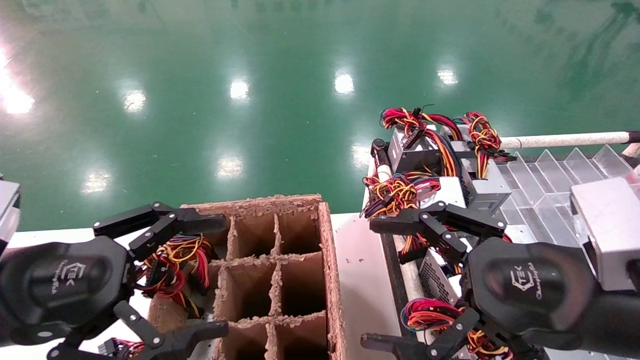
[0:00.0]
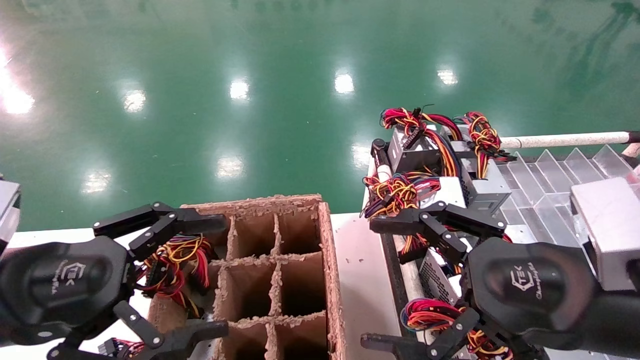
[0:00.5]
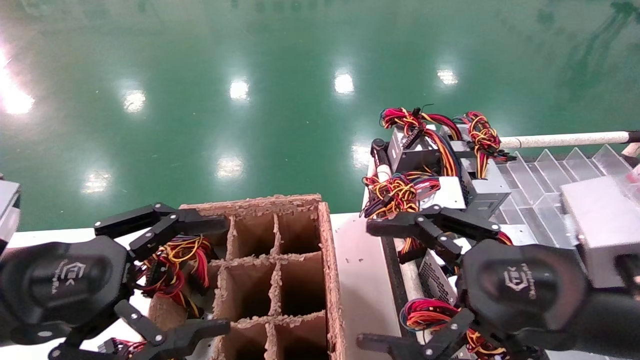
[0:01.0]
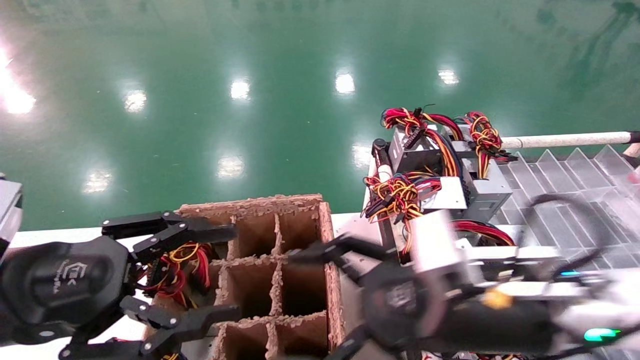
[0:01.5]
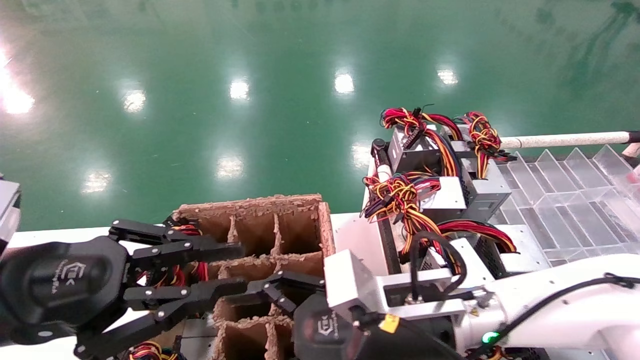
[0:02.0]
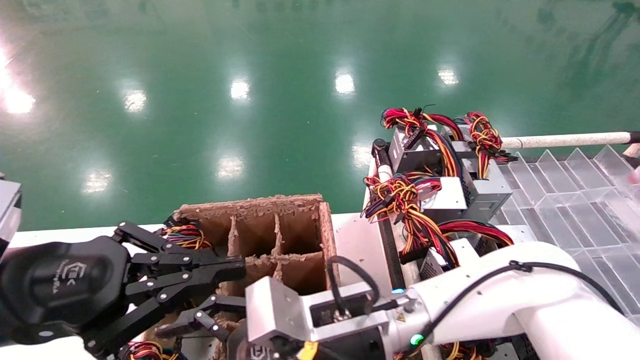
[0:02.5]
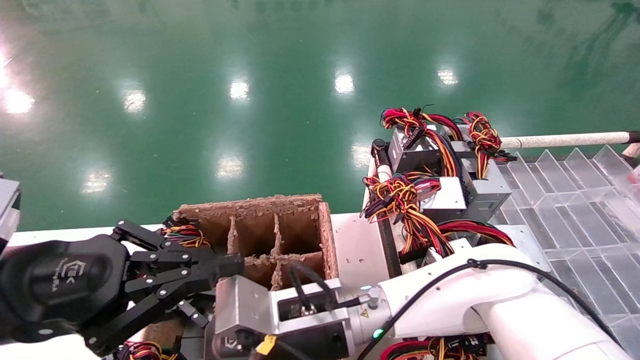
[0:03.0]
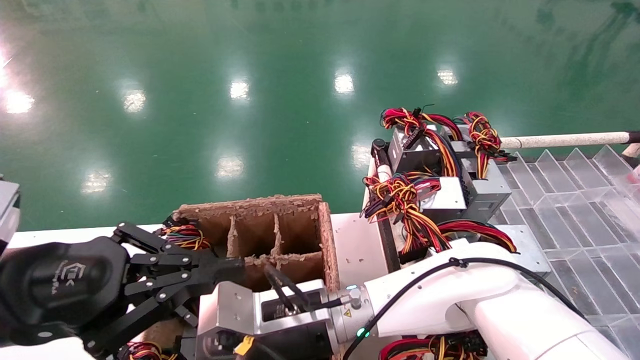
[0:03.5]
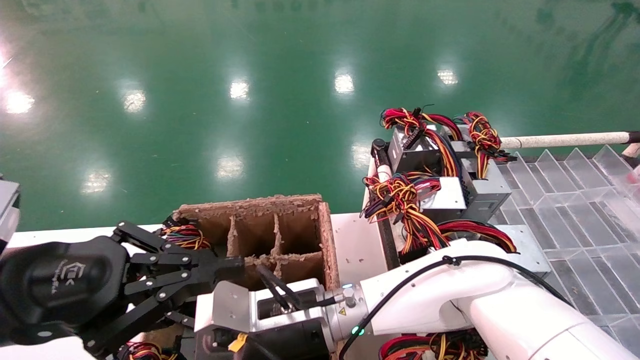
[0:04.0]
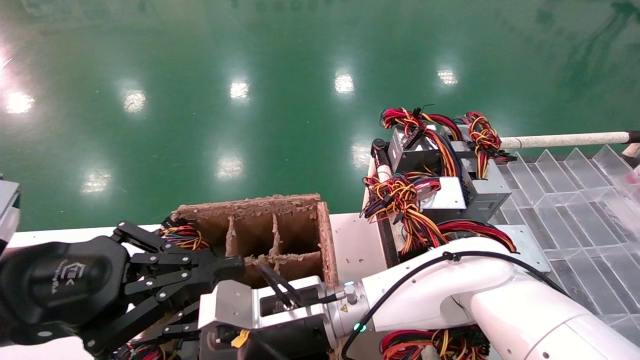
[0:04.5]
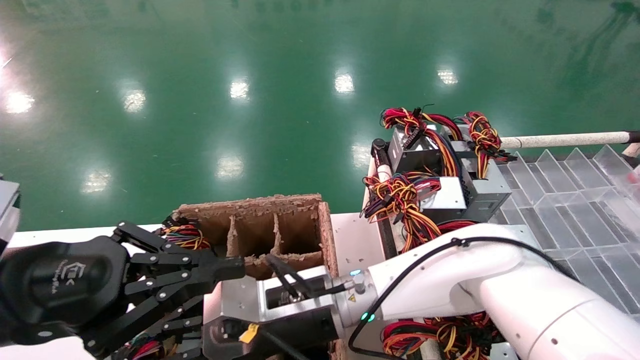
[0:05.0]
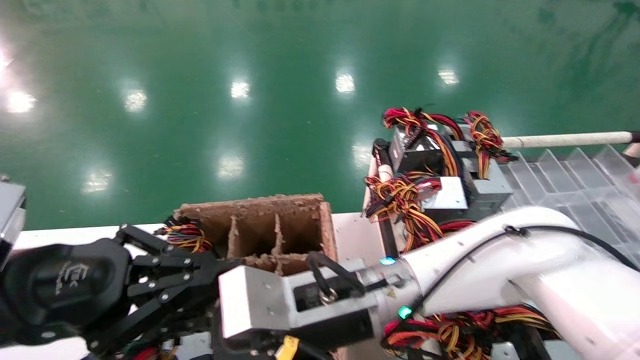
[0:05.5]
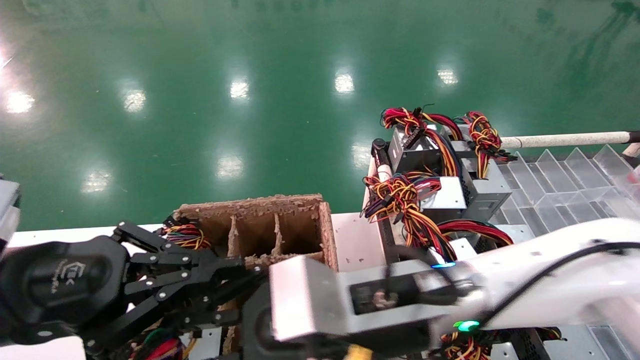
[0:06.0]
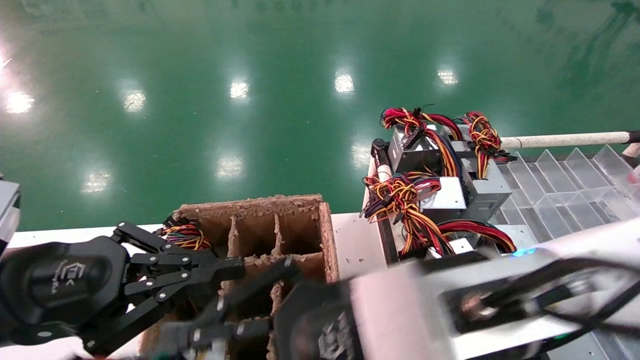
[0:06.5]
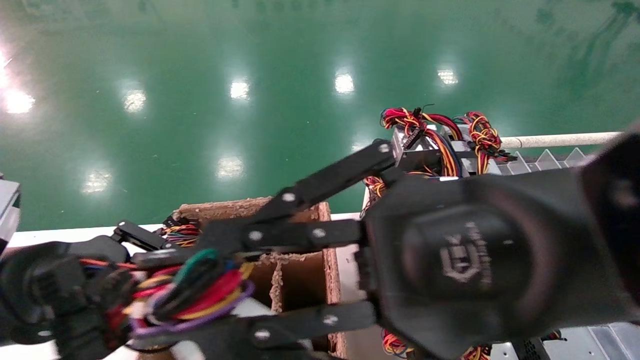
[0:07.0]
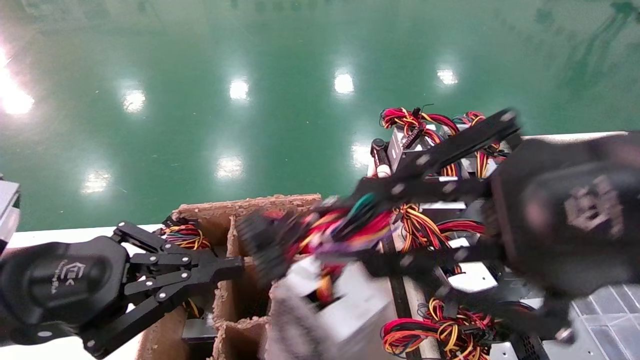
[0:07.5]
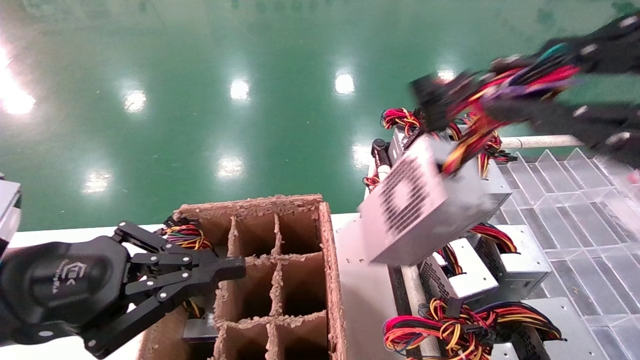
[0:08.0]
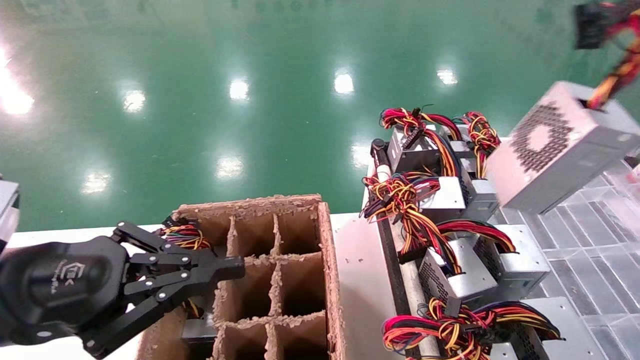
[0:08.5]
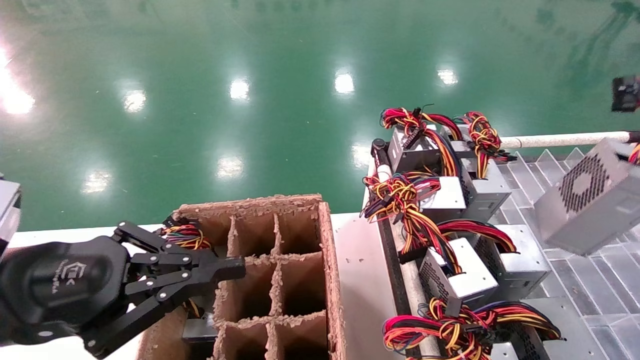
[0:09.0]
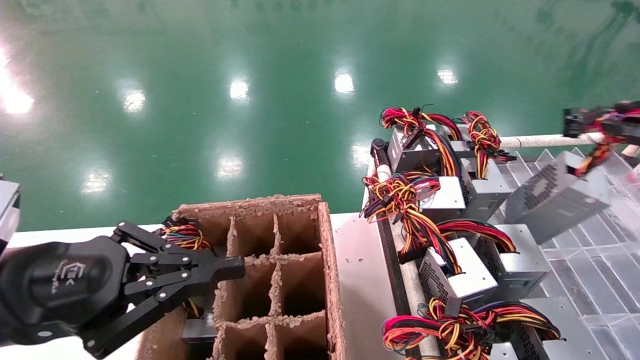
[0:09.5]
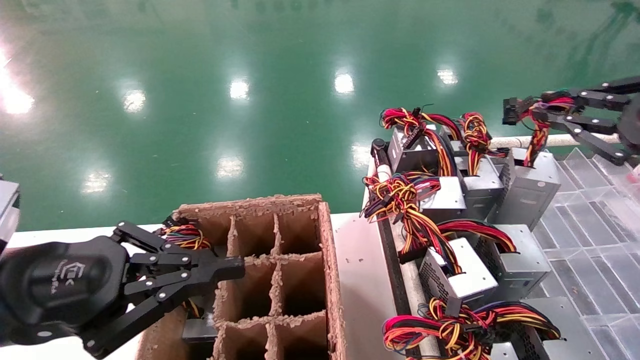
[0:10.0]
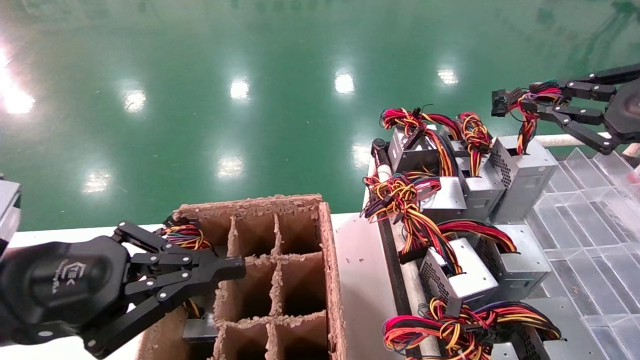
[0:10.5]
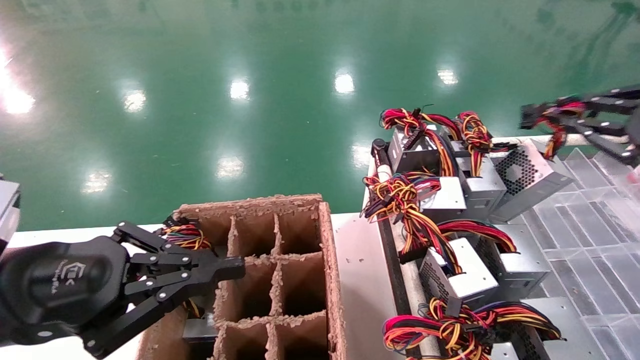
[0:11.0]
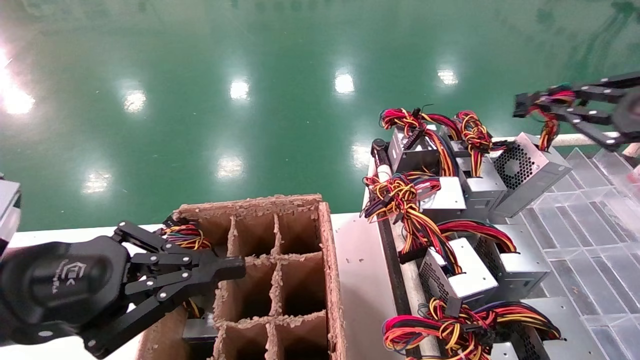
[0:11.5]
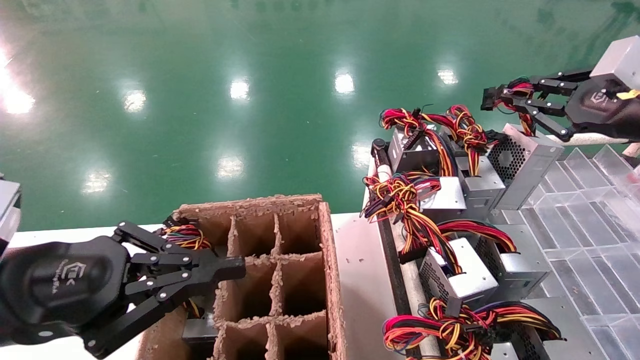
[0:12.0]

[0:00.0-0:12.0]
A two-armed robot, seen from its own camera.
Step, 0:01.5 to 0:04.5: Grab the main unit power supply from the containment box.
0:00.0 to 0:02.0: The right gripper goes about 20 cm to the left, downward and forward. The left gripper closes up.
0:02.0 to 0:04.0: The right gripper moves to the left, roughly 10 cm, while the left gripper closes.
0:04.0 to 0:06.0: The right gripper goes roughly 15 cm upward, to the right and backward, and closes its fingers.
0:06.0 to 0:08.0: The right gripper is displaced to the right, upward and backward by some 35 cm.
0:08.0 to 0:10.0: The right gripper moves forward, to the right and downward, roughly 20 cm.
0:10.0 to 0:12.0: The right gripper is displaced forward by approximately 10 cm.

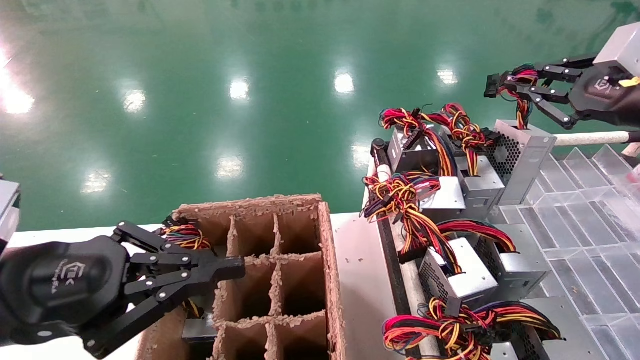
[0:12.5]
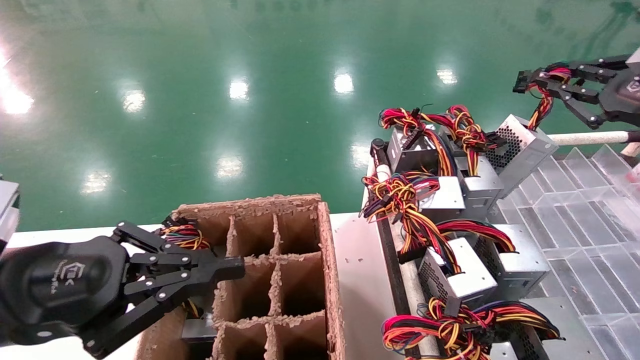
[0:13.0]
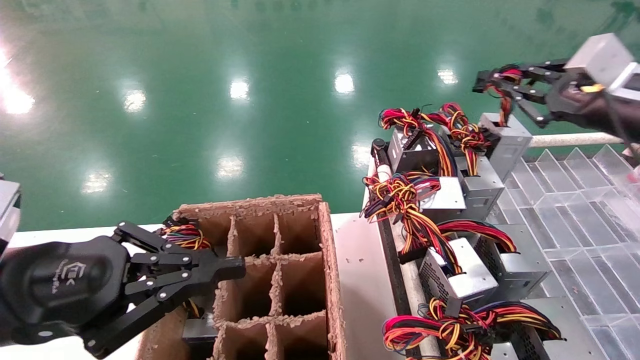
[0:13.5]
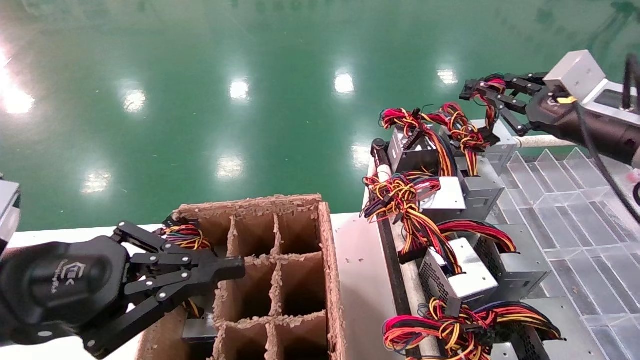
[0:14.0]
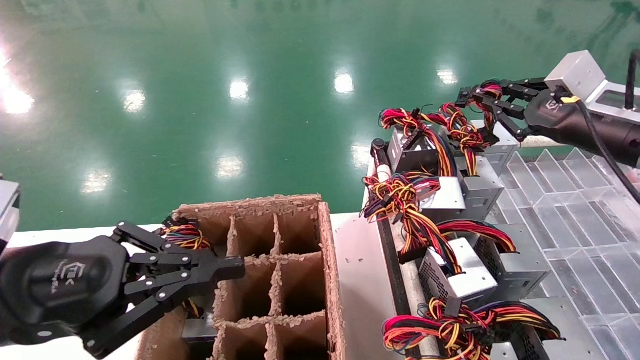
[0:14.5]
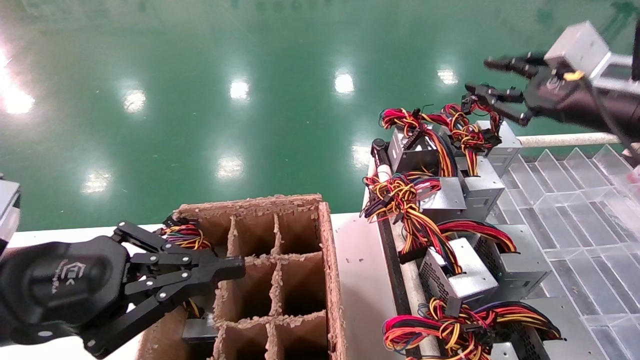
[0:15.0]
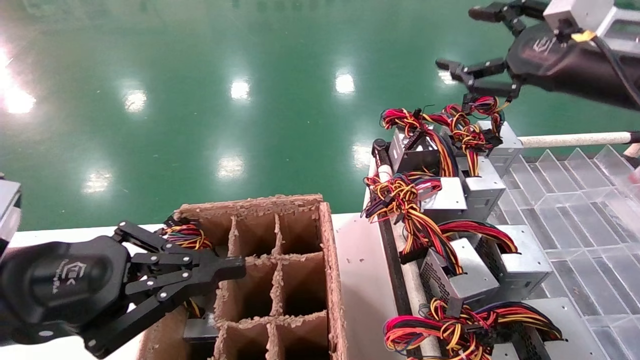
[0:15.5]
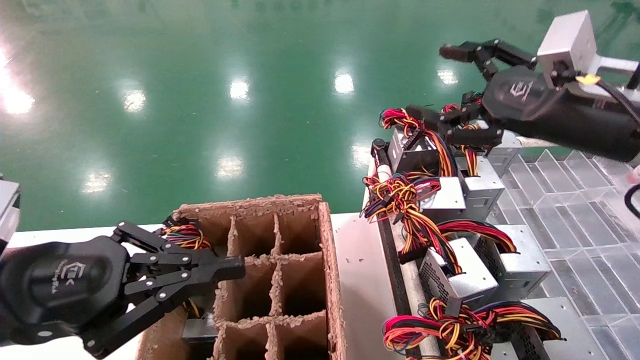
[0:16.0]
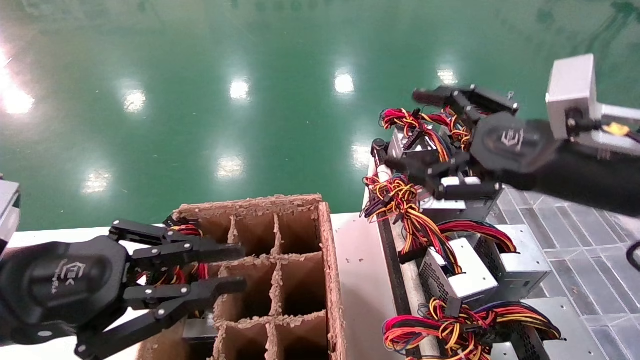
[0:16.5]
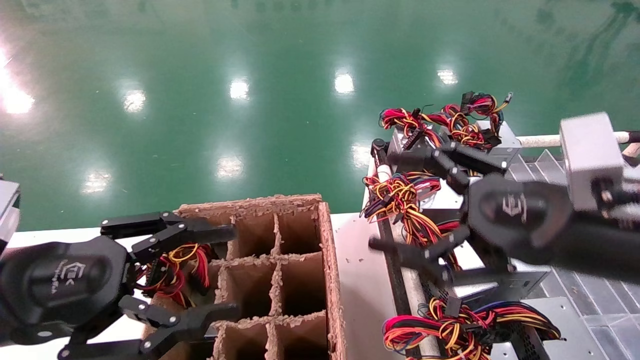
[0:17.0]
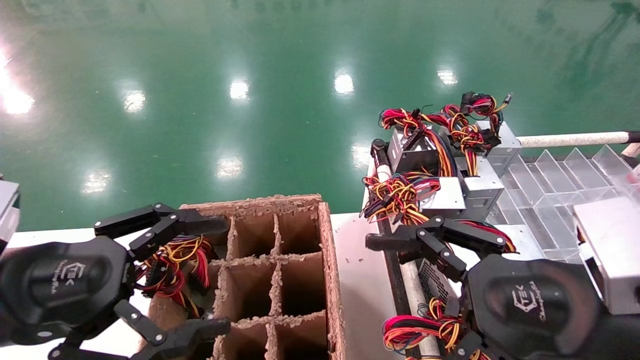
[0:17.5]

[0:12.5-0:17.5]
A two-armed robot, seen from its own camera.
Step, 0:12.5 to 0:14.5: Place the main unit power supply in the designated area.
0:12.5 to 0:15.0: The right gripper moves roughly 5 cm.
0:15.0 to 0:17.5: The right gripper moves backward, to the left and downward, roughly 25 cm, and opens its fingers; the left gripper opens its fingers.

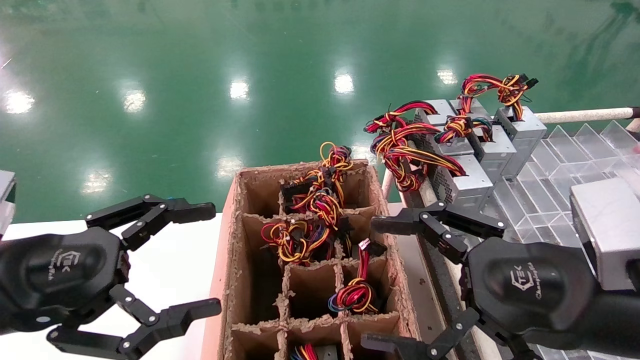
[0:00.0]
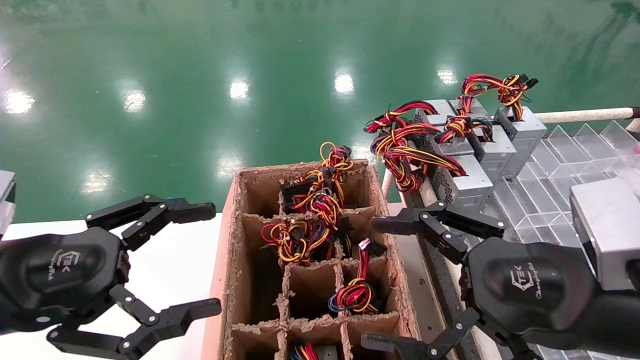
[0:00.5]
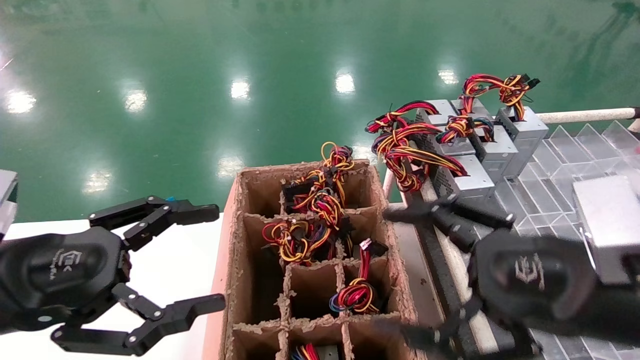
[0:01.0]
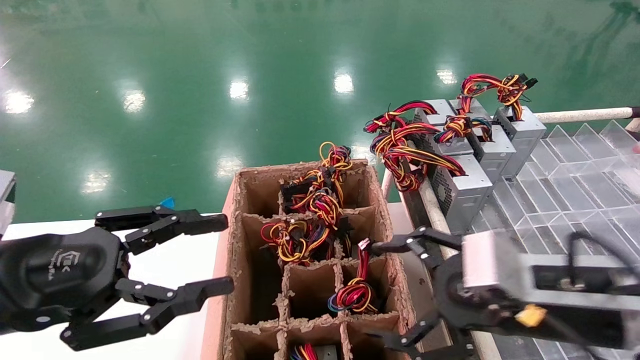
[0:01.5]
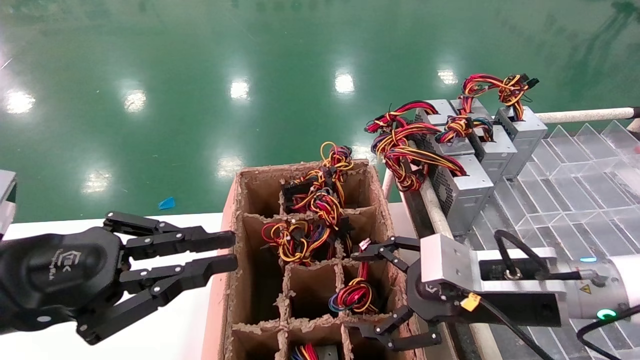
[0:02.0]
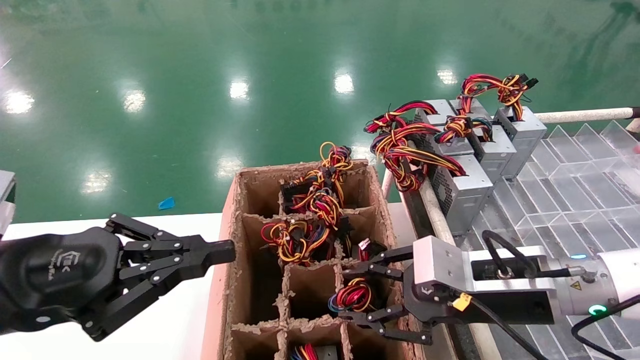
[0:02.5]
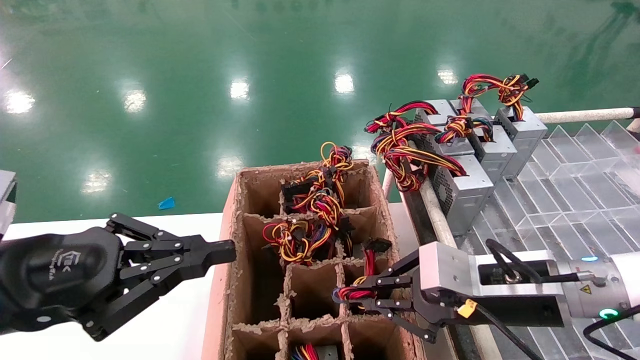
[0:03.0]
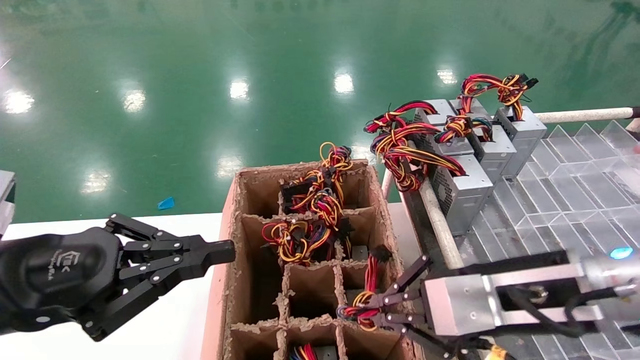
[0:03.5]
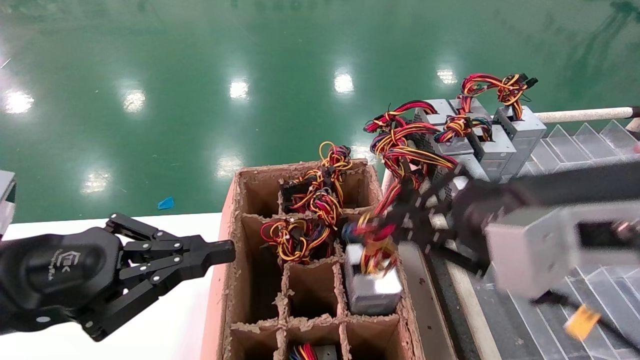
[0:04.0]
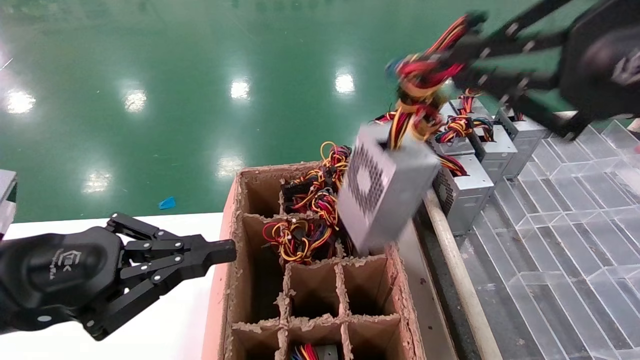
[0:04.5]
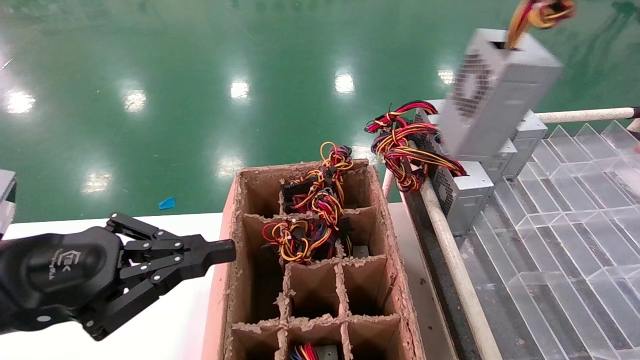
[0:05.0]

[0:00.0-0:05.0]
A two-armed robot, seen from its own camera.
Step, 0:01.5 to 0:03.0: Grab the main unit power supply from the containment box.
0:00.0 to 0:02.5: The left gripper closes up, while the right gripper heads forward and downward, covering about 10 cm, and closes its fingers.
0:02.5 to 0:05.0: The right gripper heads upward, backward and to the right, covering approximately 35 cm, and closes.
